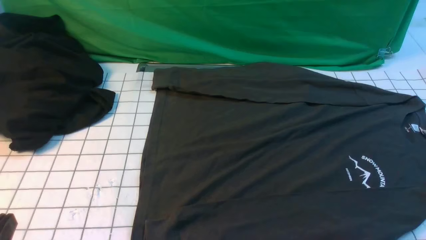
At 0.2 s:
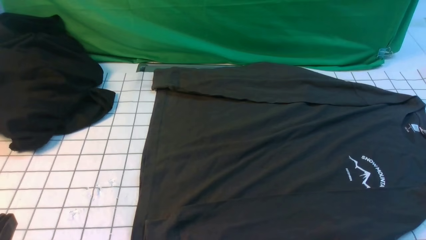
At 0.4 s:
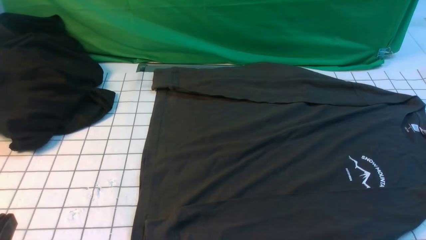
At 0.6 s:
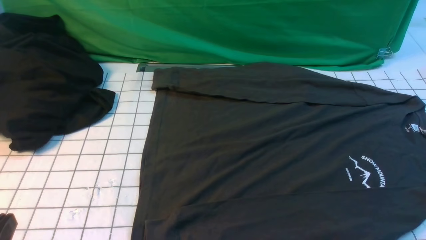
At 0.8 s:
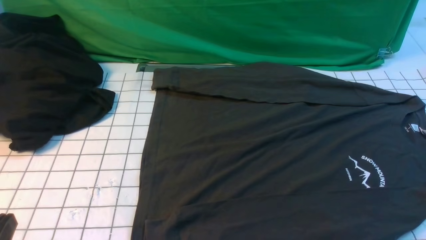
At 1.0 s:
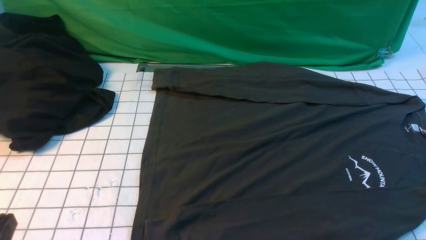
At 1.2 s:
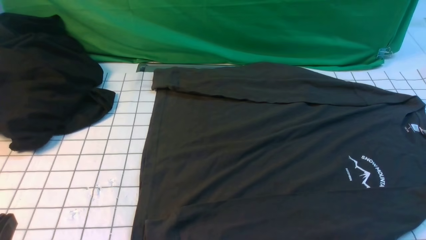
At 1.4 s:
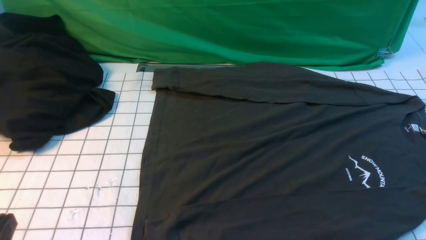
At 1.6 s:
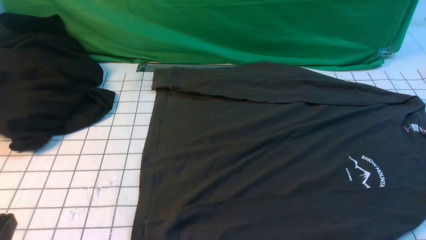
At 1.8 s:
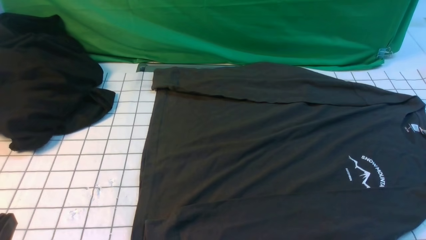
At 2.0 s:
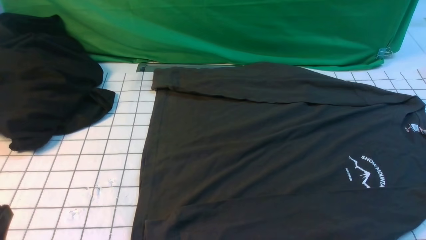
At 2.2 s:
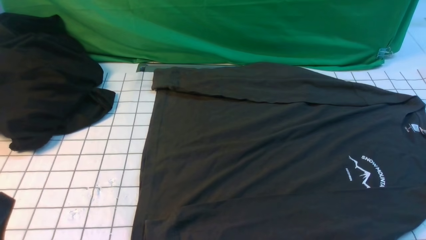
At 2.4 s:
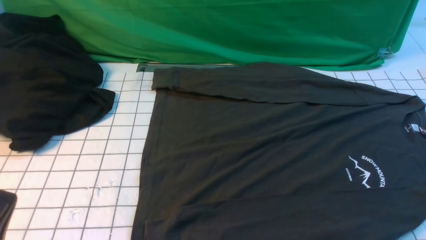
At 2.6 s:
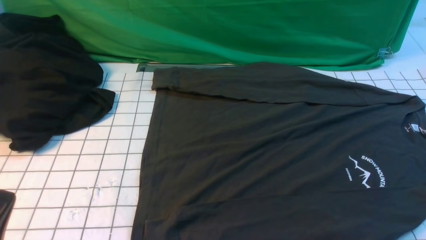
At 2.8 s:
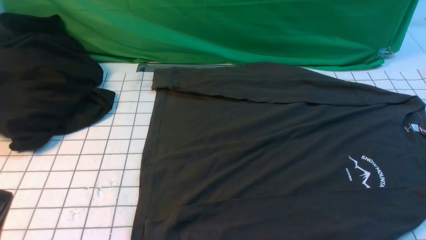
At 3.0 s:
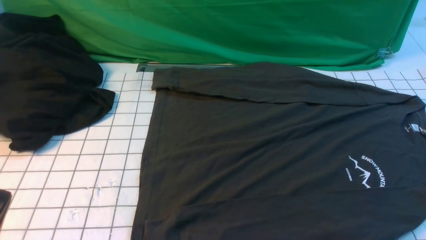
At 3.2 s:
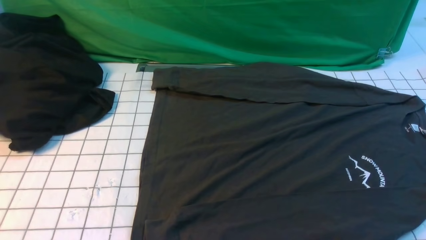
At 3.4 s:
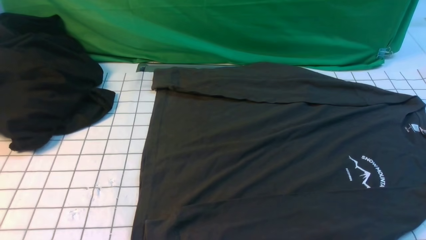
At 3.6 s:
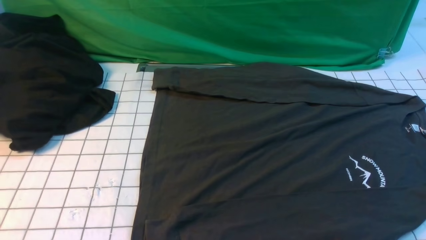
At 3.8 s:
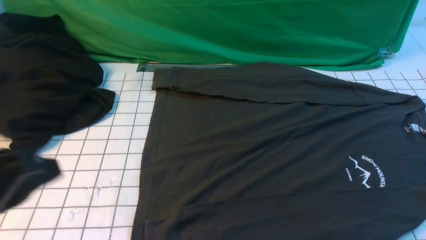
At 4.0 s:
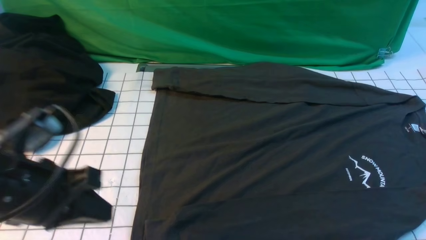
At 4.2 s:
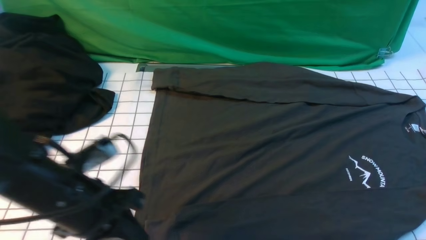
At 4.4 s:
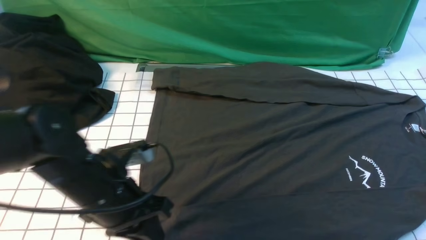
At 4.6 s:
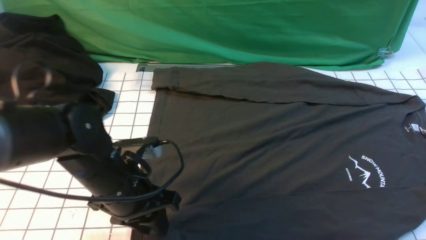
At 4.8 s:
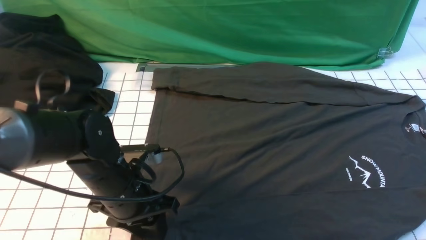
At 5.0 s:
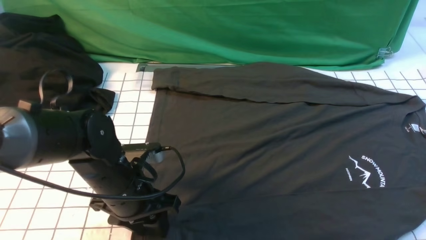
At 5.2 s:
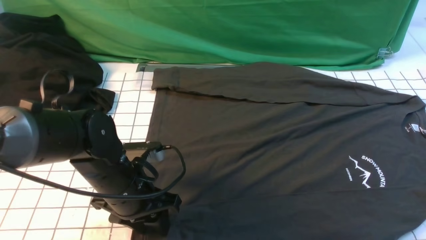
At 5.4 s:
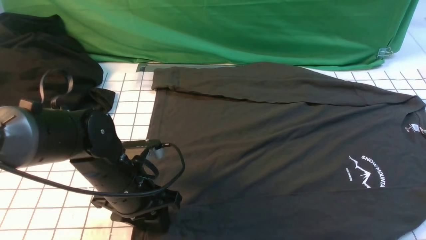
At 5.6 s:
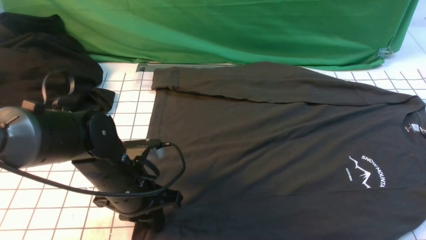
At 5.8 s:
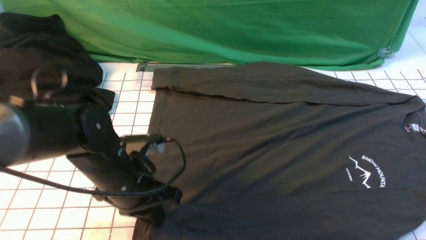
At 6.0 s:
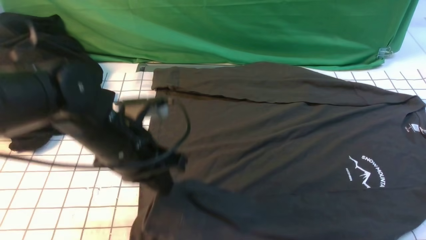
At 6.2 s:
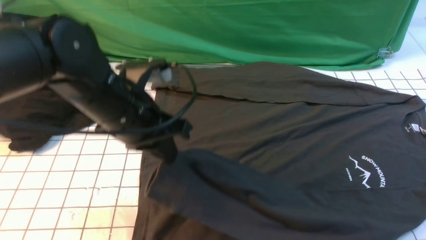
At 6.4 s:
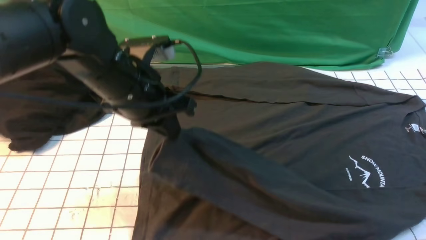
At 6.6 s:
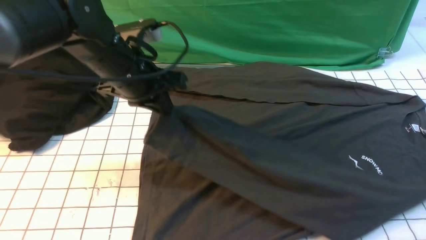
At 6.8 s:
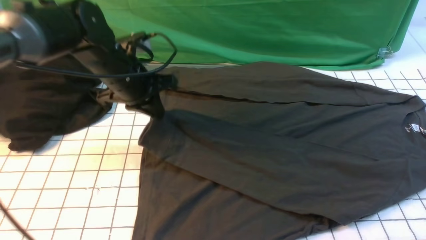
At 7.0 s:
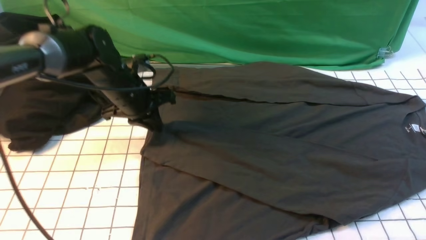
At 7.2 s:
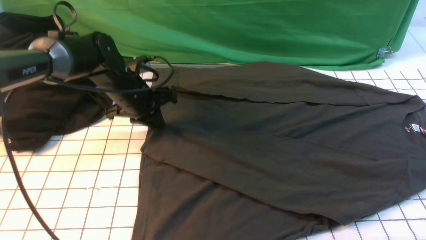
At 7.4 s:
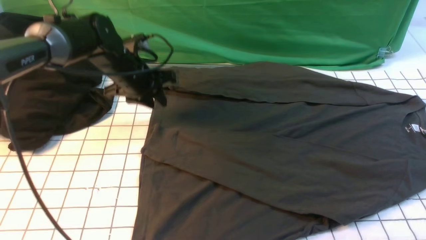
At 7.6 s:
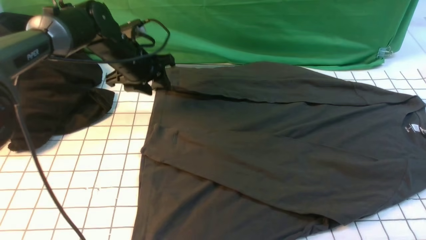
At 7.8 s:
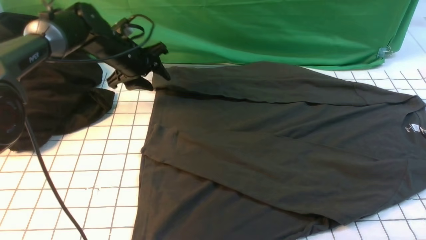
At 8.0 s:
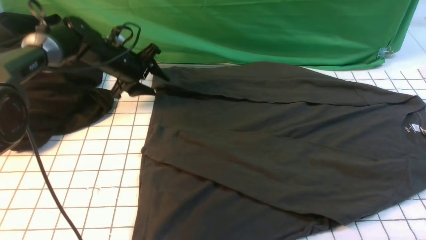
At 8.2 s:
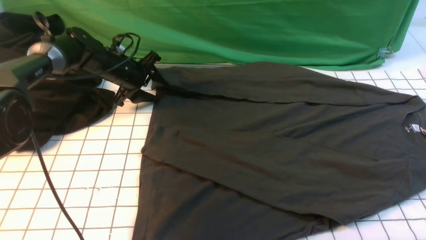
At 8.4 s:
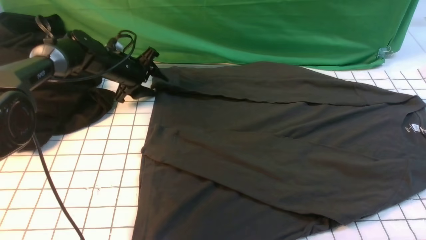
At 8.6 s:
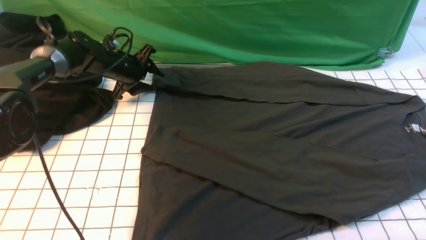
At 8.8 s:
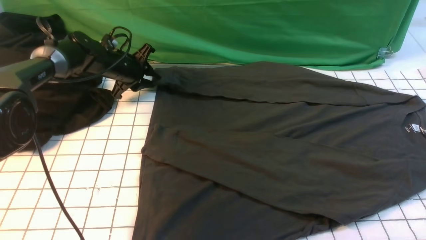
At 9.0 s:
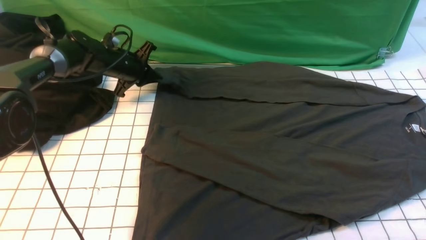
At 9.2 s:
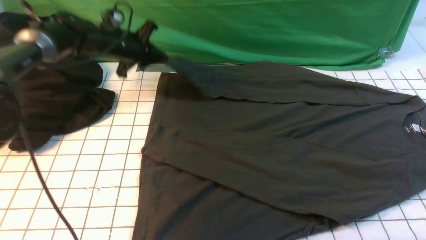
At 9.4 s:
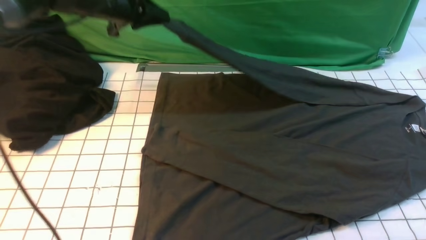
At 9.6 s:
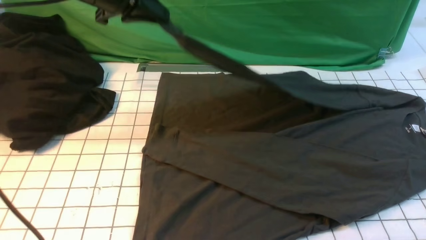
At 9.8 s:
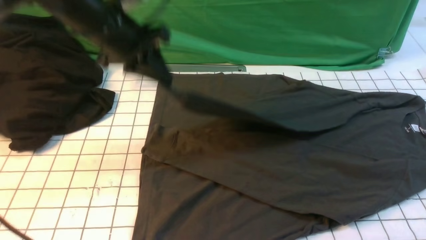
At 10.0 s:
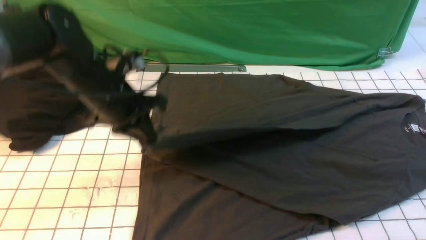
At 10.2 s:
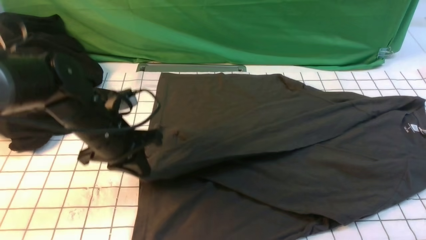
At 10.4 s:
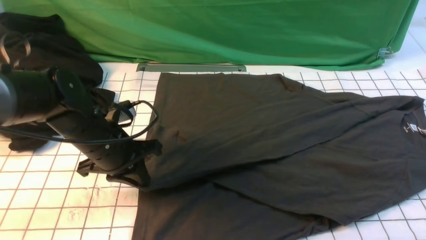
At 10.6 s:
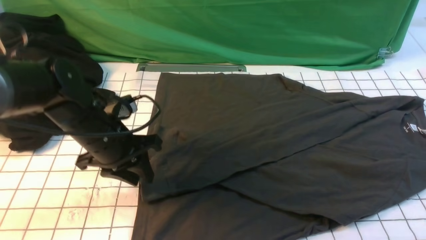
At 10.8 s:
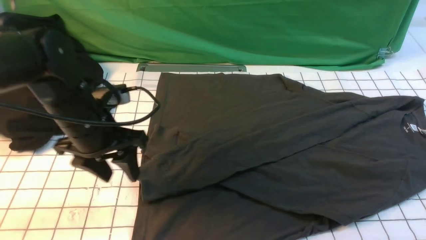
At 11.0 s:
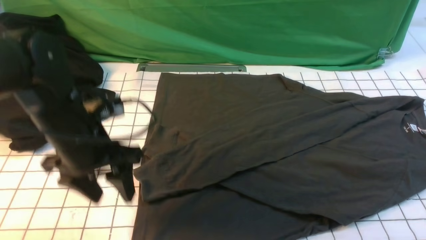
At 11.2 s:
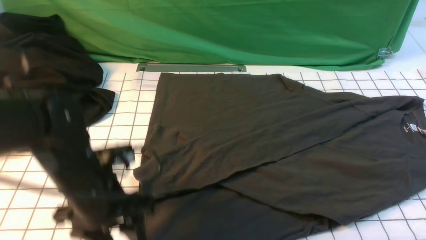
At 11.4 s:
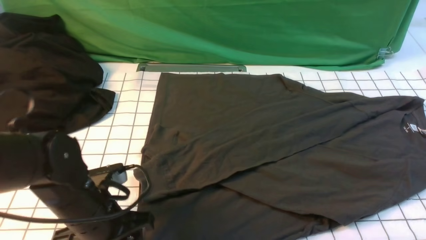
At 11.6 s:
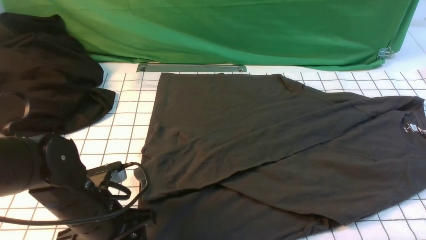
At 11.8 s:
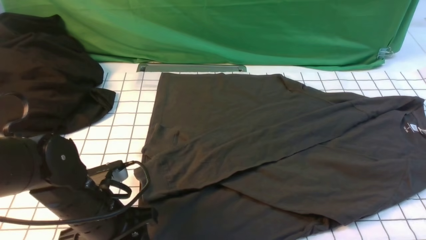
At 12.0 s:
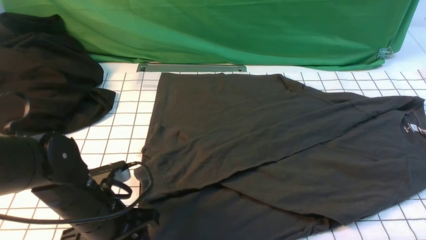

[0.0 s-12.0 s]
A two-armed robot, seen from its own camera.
Step, 0.0 to 5.6 s: use the left arm to clamp the cuff closest to it.
Step, 5.8 to 7.2 s: use the left arm to drag and place the cuff at the centered position on the left edge of the fabric.
Step, 7.4 to 8.8 s: use the left arm to clamp the cuff farthest from it.
Step, 9.2 to 10.6 s: use the left arm to drag and drop the cuff onto the cuff closest to the left arm.
0.0 to 1.6 s: Neither gripper changes place.
3.0 to 4.4 s: The right gripper travels upward by about 10 cm, and closes up. Meanwhile the left gripper heads forward and to the right, covering roughly 20 cm.
4.4 to 6.0 s: The left gripper moves forward, approximately 5 cm, and opens, then closes once more.
6.0 to 7.6 s: The left gripper moves forward, approximately 20 cm, and opens its fingers.
7.6 to 9.0 s: The left gripper shifts by about 5 cm, and closes.
9.0 to 10.4 s: The left gripper heads backward, covering about 20 cm.
10.4 to 12.0 s: The left gripper shifts about 10 cm backward, and opens its fingers.

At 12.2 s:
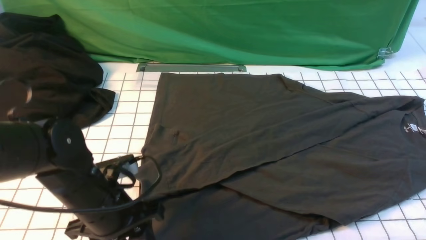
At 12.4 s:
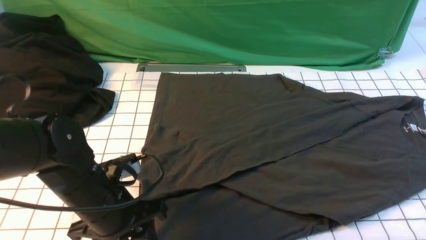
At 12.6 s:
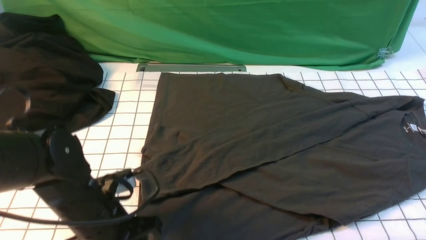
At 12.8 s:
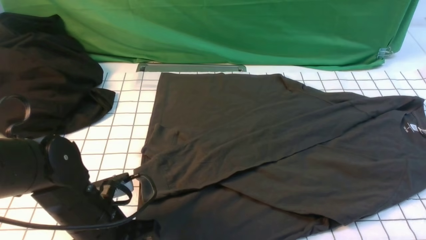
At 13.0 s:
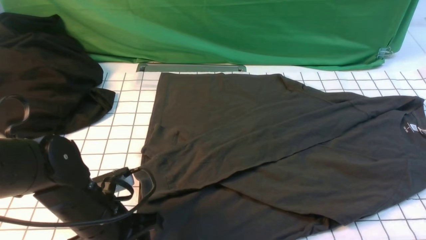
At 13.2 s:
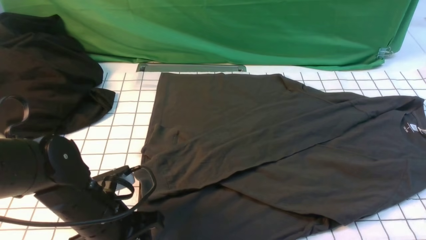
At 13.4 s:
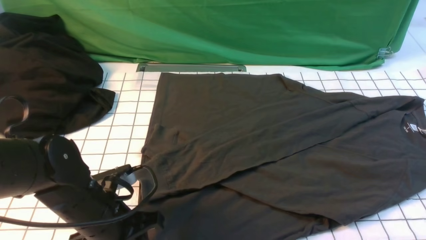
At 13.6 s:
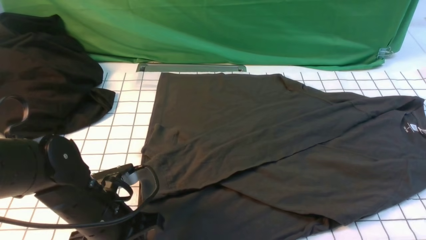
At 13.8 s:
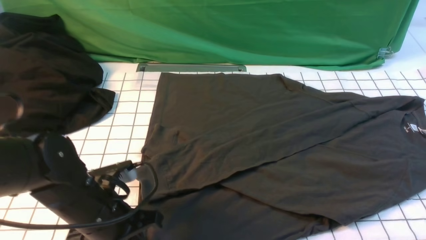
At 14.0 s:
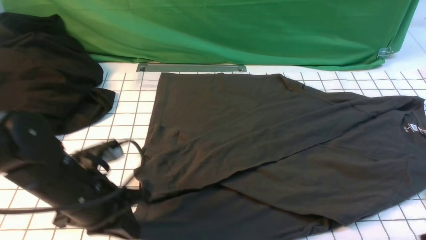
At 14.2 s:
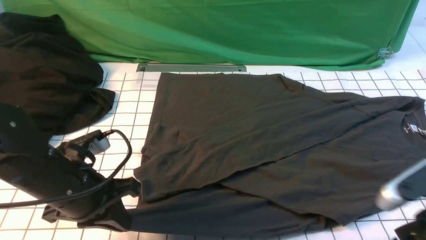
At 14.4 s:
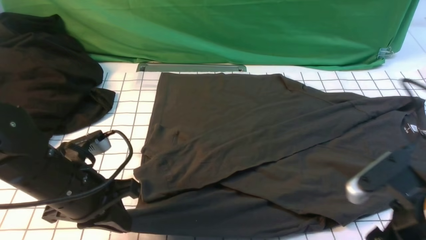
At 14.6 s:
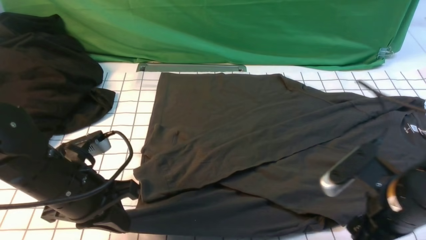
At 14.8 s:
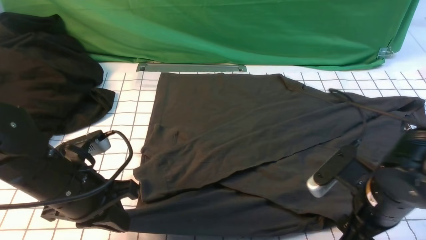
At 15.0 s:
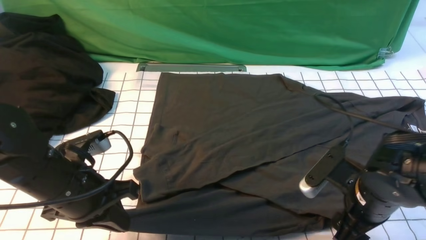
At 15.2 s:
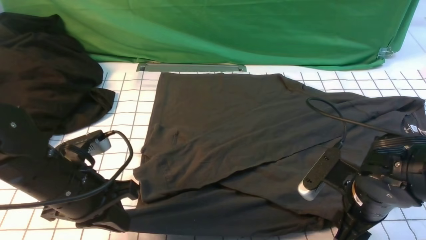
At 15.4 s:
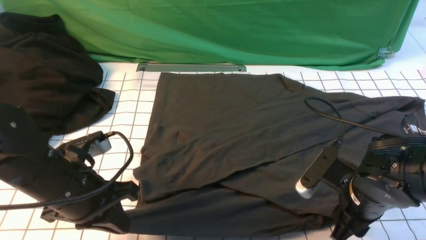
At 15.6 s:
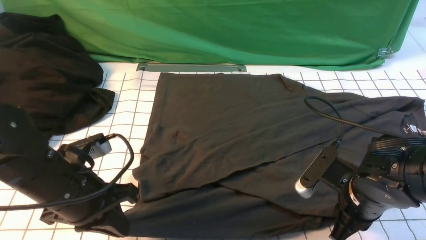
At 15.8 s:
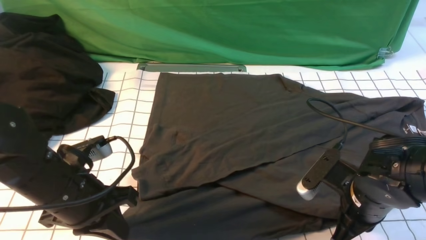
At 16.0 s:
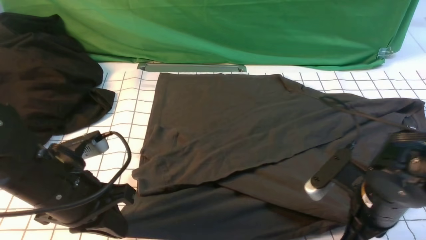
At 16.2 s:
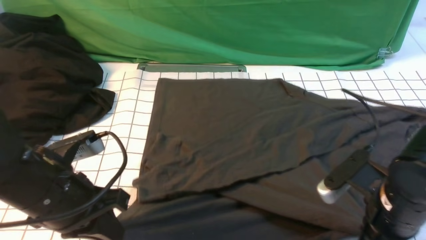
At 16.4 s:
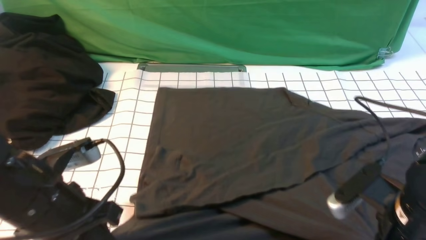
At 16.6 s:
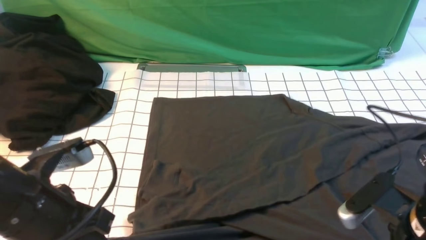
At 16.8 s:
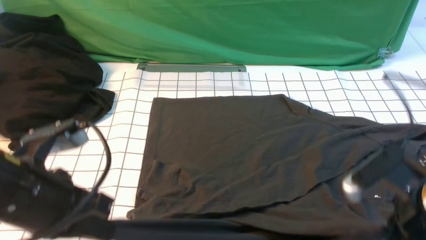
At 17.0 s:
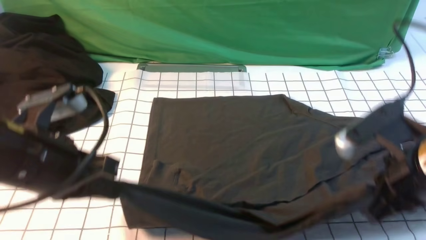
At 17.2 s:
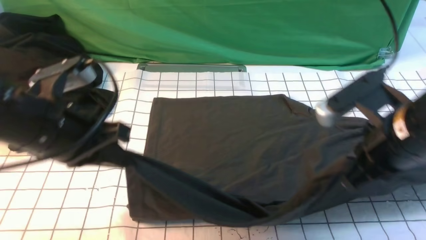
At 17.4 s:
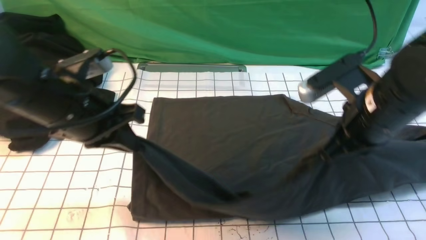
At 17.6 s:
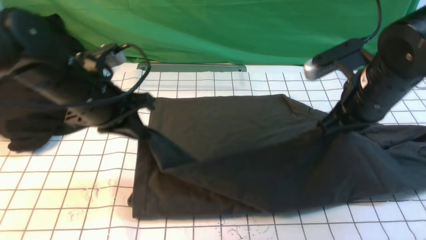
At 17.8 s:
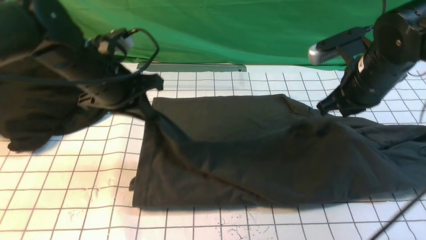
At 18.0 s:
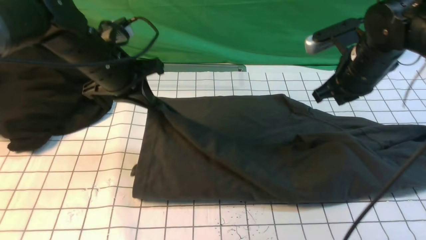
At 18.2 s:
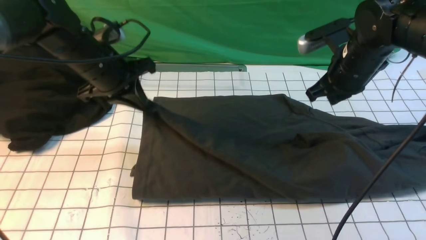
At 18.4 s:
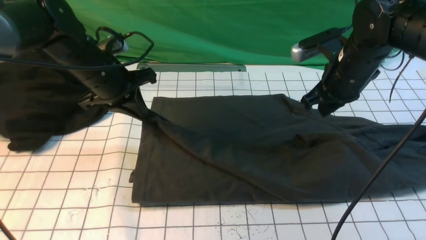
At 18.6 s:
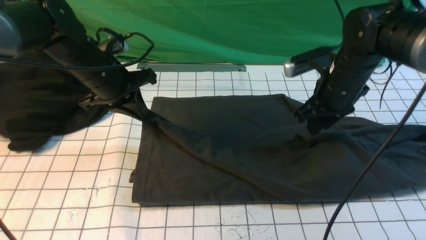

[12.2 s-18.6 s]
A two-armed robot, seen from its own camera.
Step, 12.2 to 15.6 s: use both arms simultaneously to clamp the lower edge of the clothing fabric.
12.2 to 13.8 s: The left gripper closes its fingers.
13.8 to 15.4 s: The right gripper is displaced forward, downward and to the left by about 20 cm, and opens, then closes again.
15.4 to 17.0 s: Both grippers move upward, some 10 cm. The right gripper closes.
17.0 to 18.6 s: Both grippers travel together forward, approximately 20 cm. The right gripper opens.
